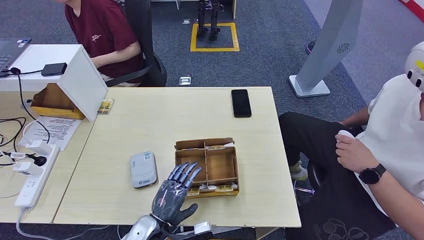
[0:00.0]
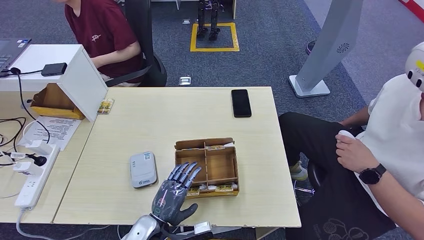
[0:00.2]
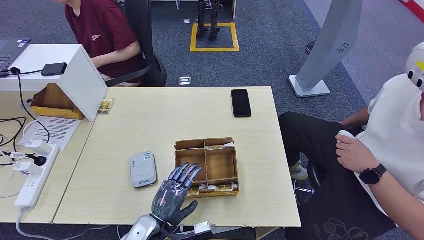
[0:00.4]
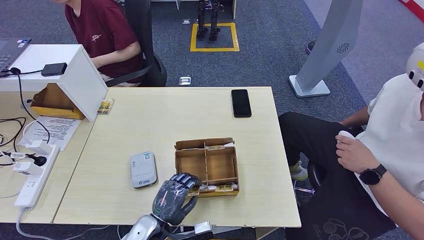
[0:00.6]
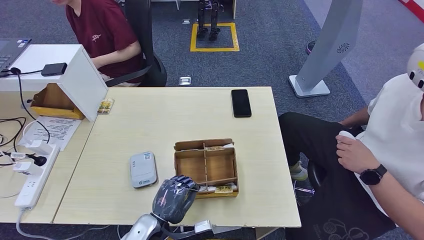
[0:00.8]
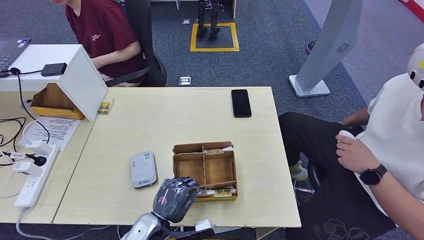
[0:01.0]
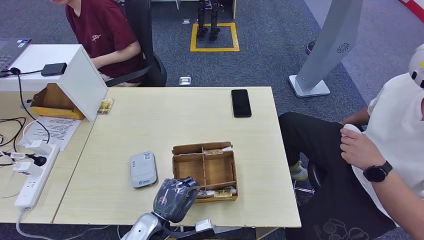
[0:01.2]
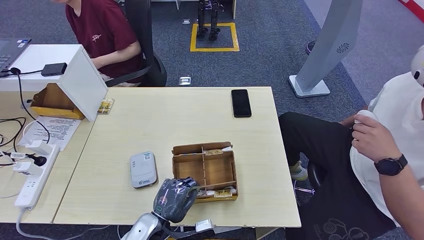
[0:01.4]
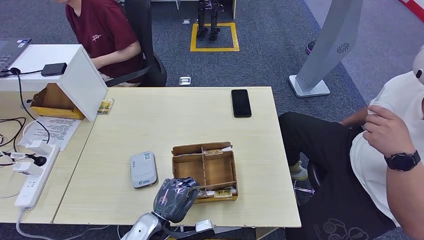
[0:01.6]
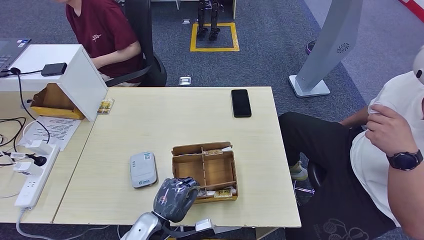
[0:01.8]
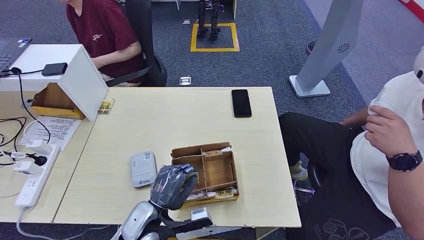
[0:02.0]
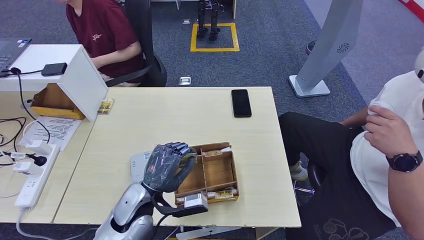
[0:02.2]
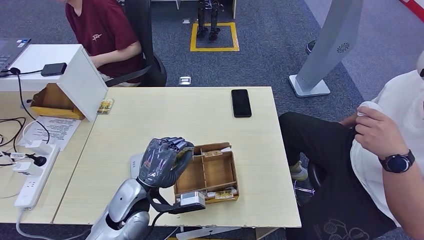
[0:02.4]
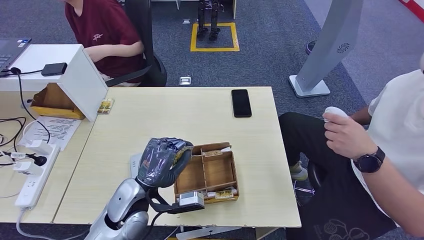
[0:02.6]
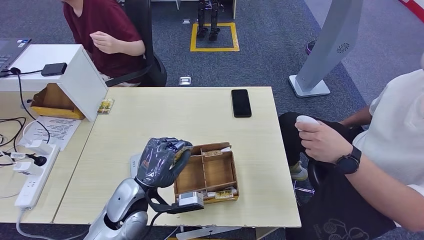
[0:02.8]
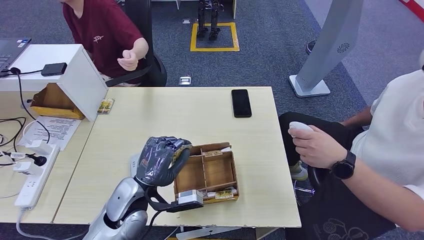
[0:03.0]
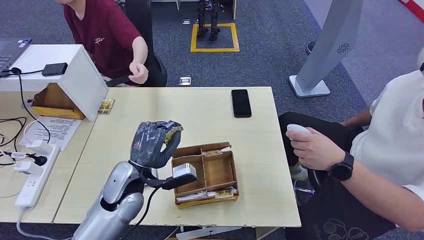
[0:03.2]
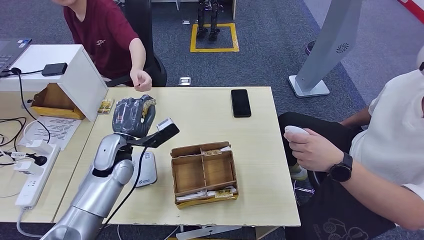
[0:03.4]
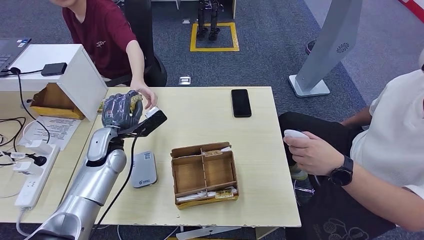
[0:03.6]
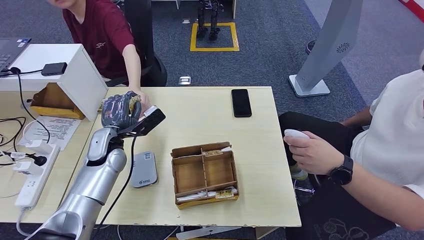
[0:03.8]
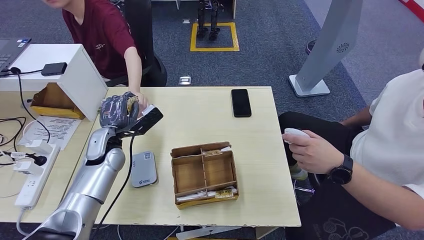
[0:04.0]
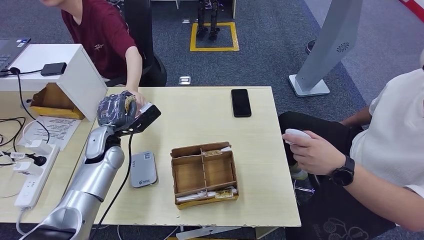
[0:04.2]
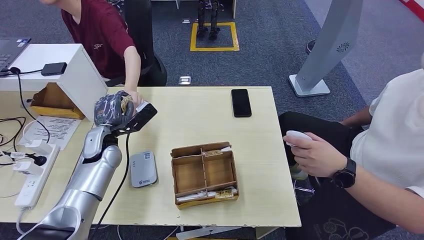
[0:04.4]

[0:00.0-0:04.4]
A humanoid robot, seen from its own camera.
Step, 0:00.0 to 0:02.6: Pick up the room key from the key card box.
Step, 0:03.0 to 0:04.4: Hand the room key to the person.
0:00.0 to 0:01.4: Both hands stay put.
0:01.4 to 0:03.0: The left hand shifts approximately 10 cm upward and forward.
0:03.0 to 0:04.4: The left hand goes some 20 cm forward and to the left.
